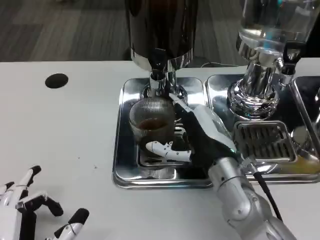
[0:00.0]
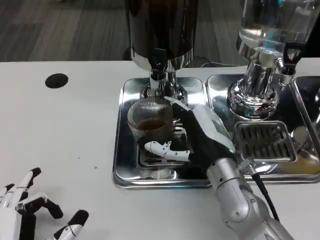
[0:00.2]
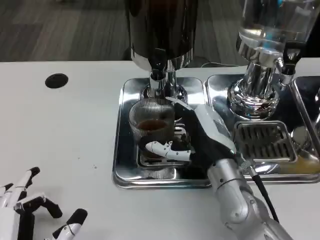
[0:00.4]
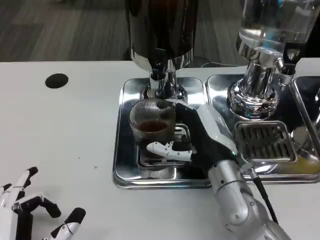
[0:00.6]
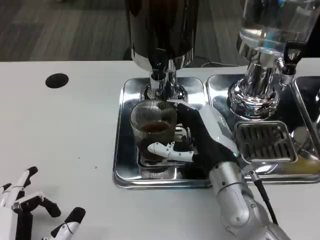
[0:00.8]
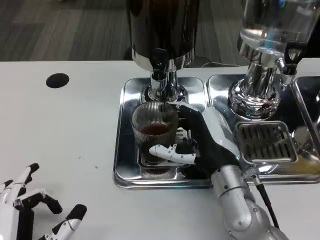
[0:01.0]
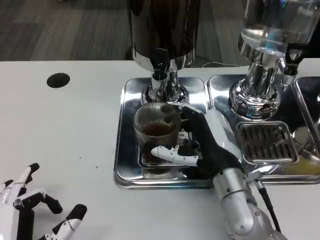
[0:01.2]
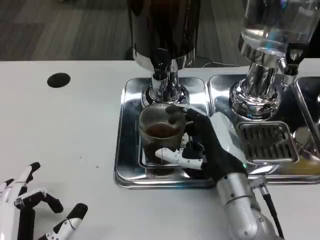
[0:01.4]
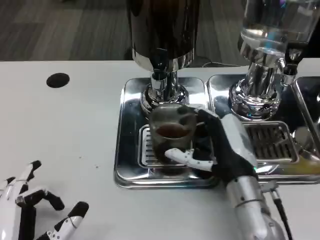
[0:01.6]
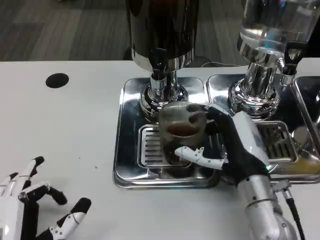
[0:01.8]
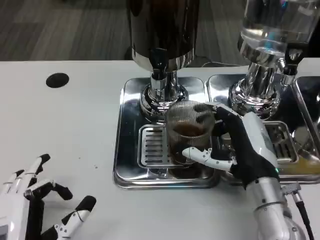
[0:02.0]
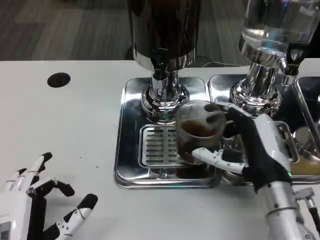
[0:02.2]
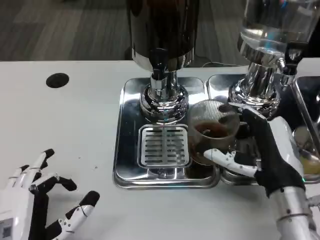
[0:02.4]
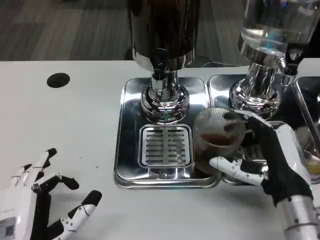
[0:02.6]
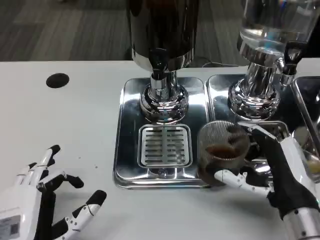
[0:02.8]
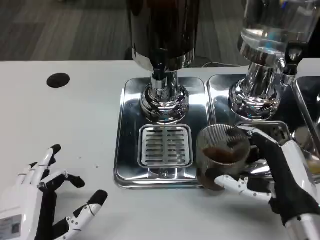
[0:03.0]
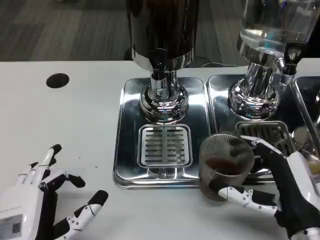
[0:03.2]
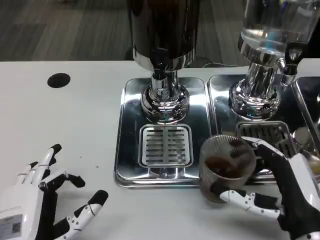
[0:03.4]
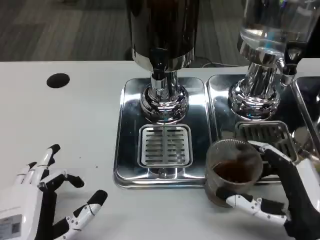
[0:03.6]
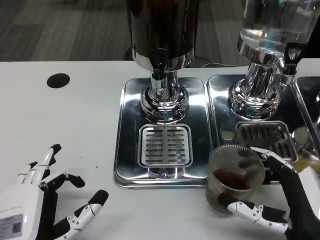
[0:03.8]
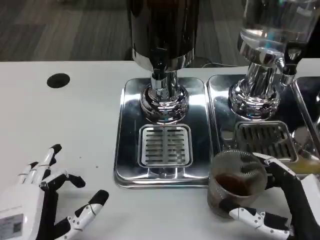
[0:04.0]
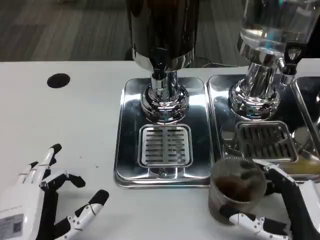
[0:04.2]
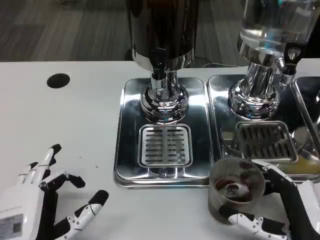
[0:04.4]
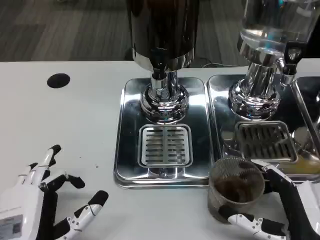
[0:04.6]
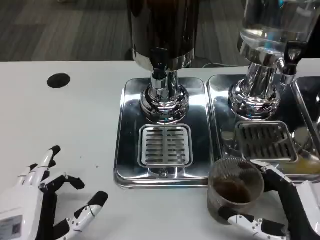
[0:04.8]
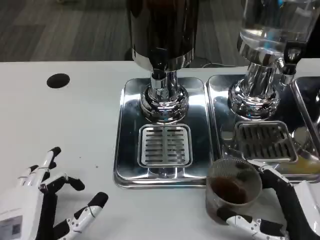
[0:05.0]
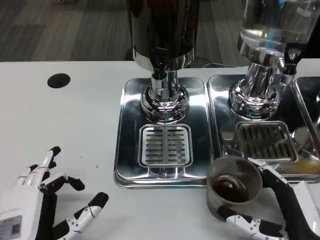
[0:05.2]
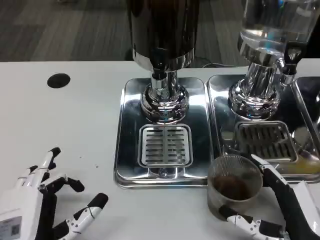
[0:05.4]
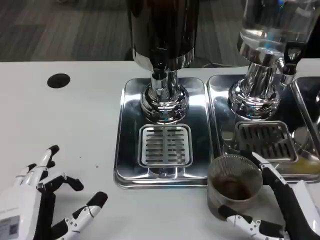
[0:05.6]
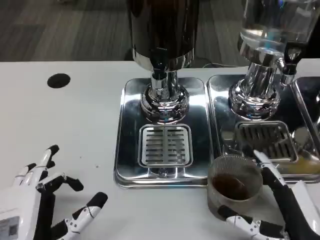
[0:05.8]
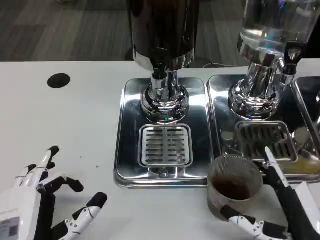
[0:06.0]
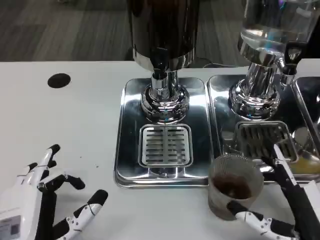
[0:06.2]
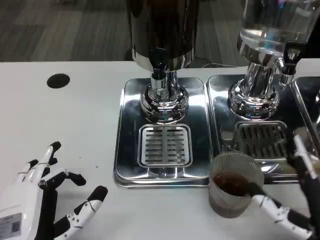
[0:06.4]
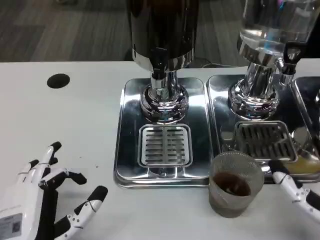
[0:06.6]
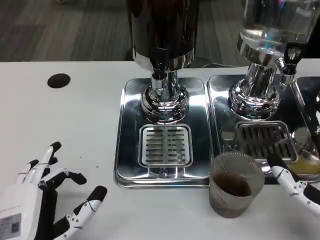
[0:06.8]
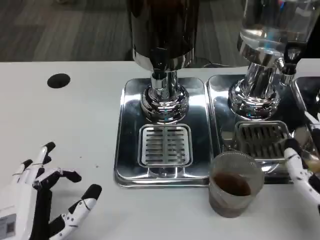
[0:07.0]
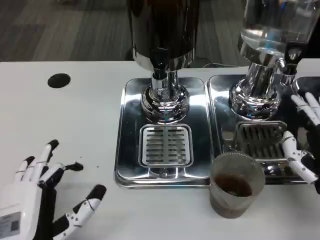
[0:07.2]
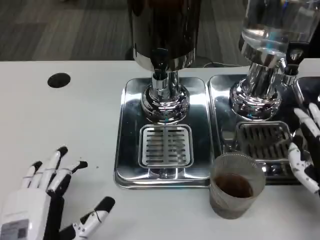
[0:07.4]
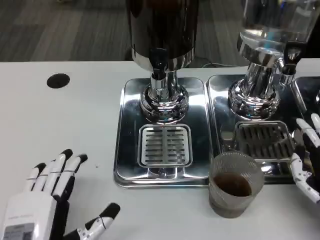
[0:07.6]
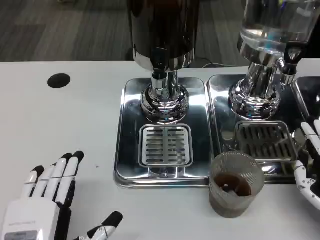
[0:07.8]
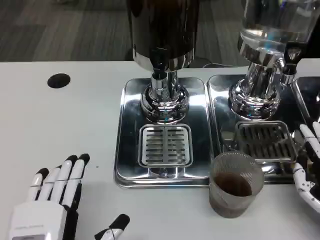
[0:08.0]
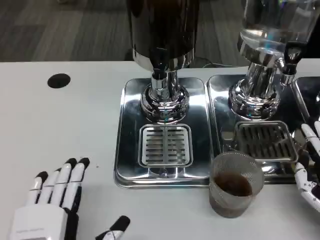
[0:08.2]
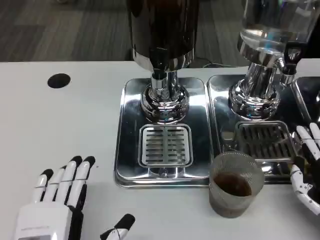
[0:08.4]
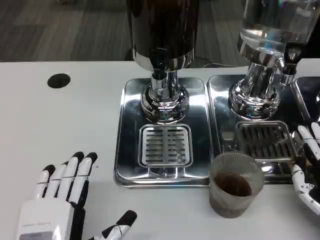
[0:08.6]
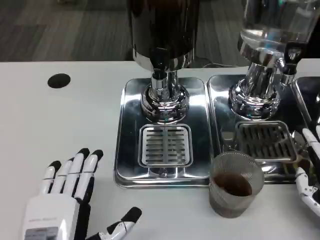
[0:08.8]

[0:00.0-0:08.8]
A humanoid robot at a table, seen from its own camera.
Task of the whole recording: Grasp the cup under the faucet to collect the drink, then remove the cup.
0:01.4 to 0:03.0: The right hand heads to the right and backward, covering roughly 10 cm.
0:03.0 to 0:04.4: The right hand ends up approximately 5 cm from where it was.
0:04.4 to 0:05.8: The hands stay close to where they were, moving slightly.
0:05.8 to 0:07.4: The right hand is displaced forward and to the right by roughly 10 cm.
0:07.4 to 0:08.8: There are only small adjustments of the hands.

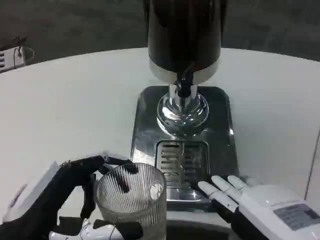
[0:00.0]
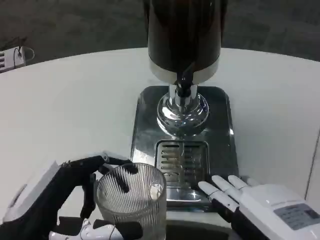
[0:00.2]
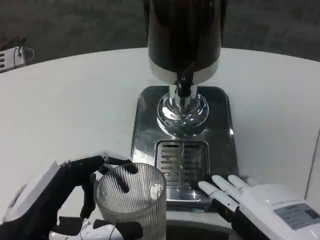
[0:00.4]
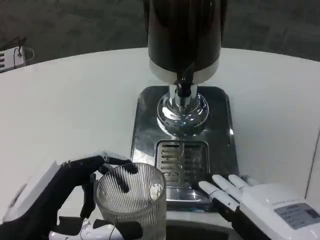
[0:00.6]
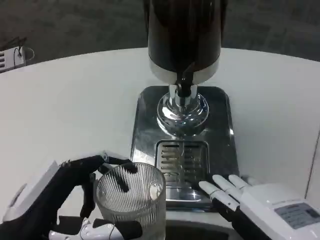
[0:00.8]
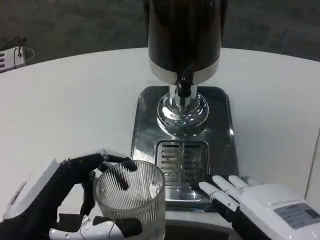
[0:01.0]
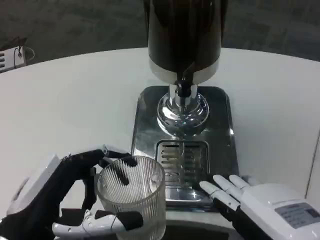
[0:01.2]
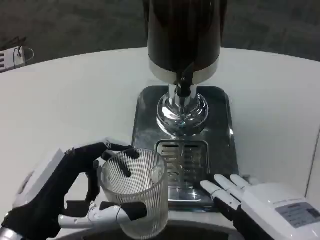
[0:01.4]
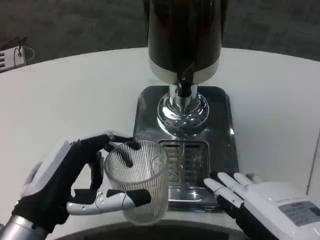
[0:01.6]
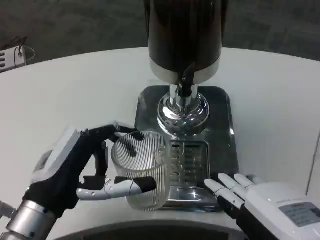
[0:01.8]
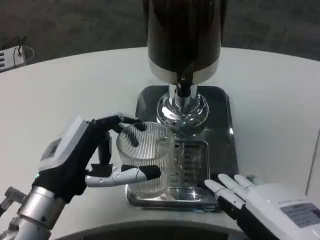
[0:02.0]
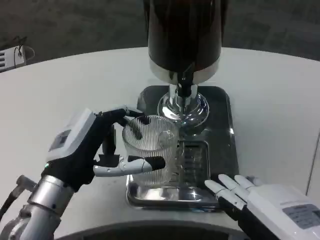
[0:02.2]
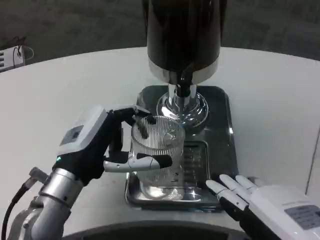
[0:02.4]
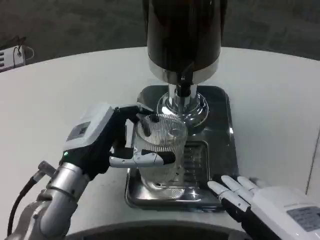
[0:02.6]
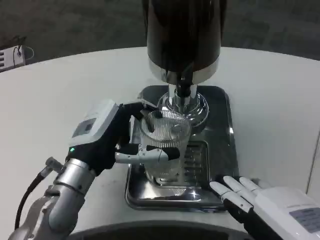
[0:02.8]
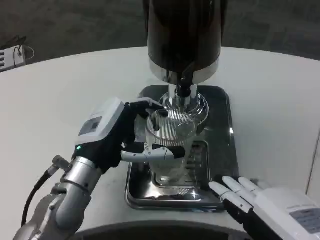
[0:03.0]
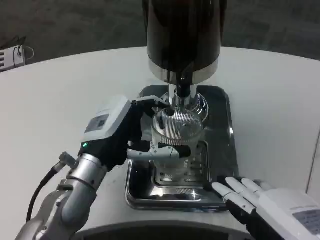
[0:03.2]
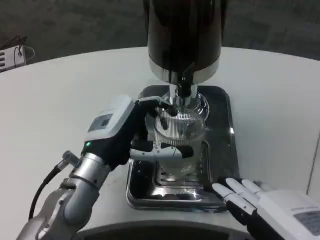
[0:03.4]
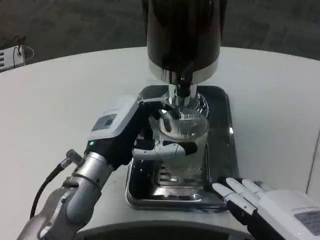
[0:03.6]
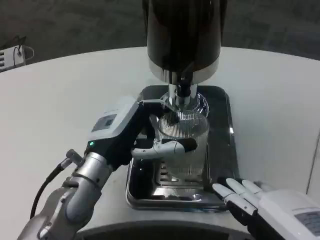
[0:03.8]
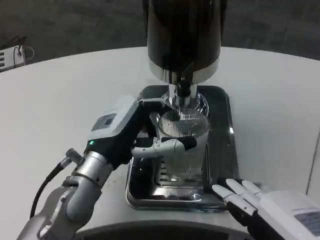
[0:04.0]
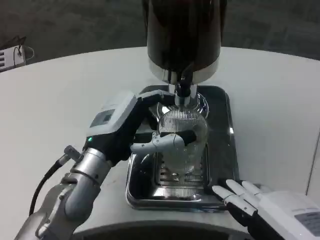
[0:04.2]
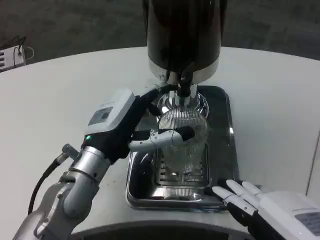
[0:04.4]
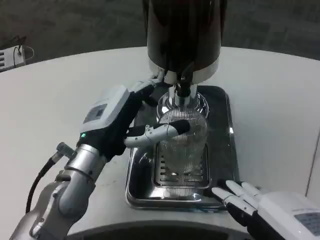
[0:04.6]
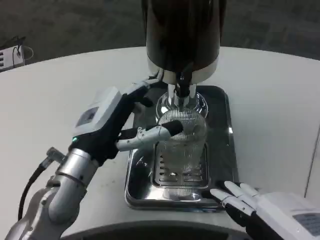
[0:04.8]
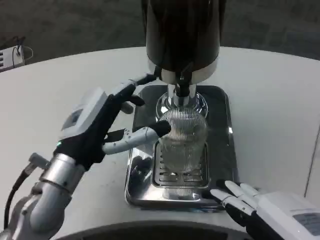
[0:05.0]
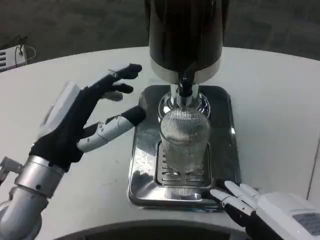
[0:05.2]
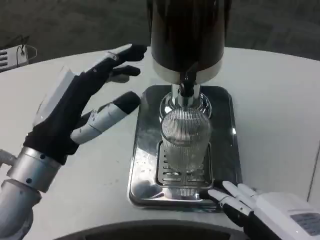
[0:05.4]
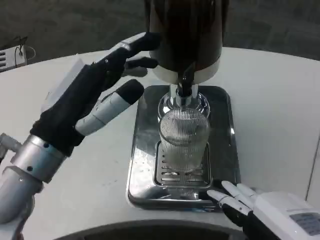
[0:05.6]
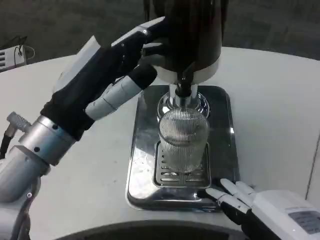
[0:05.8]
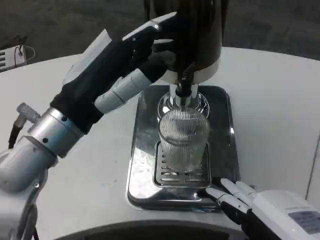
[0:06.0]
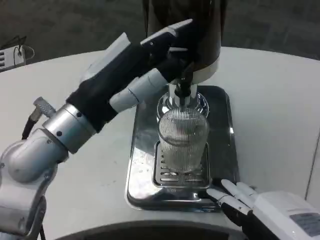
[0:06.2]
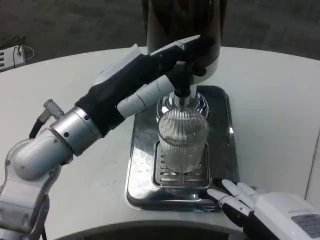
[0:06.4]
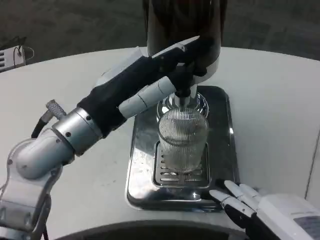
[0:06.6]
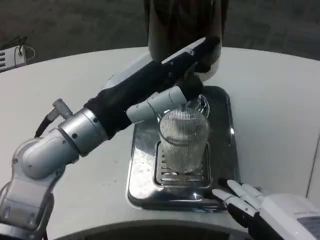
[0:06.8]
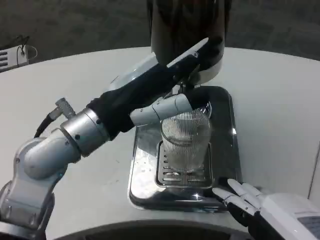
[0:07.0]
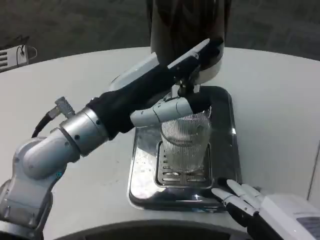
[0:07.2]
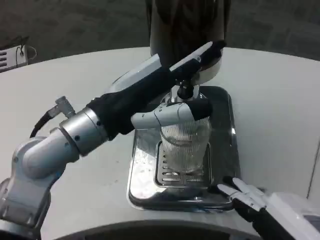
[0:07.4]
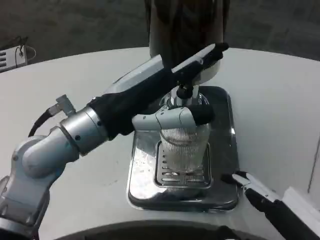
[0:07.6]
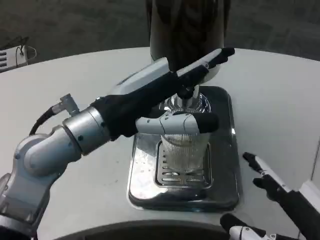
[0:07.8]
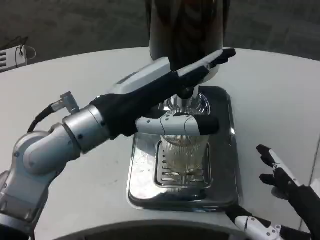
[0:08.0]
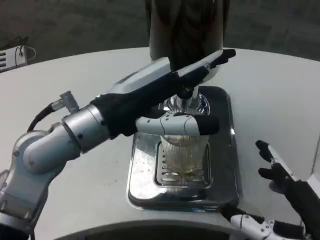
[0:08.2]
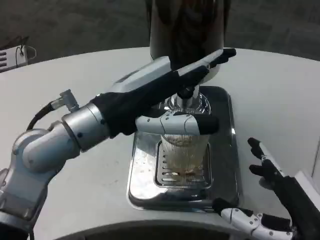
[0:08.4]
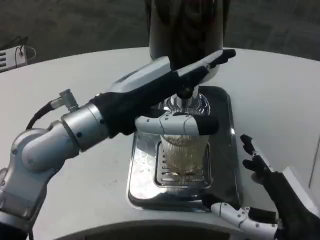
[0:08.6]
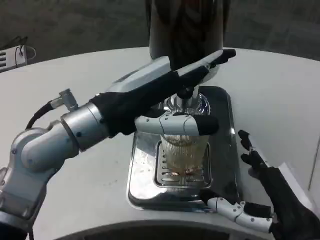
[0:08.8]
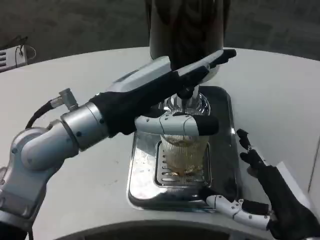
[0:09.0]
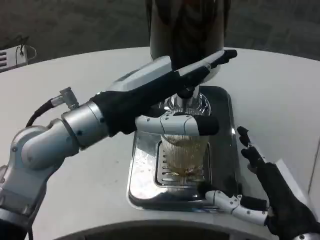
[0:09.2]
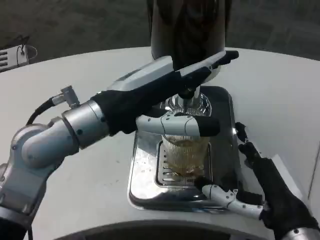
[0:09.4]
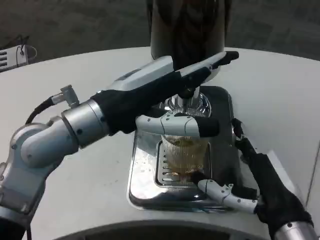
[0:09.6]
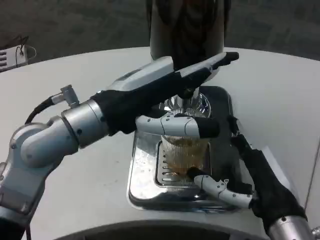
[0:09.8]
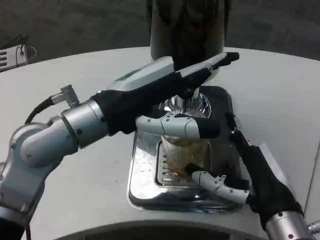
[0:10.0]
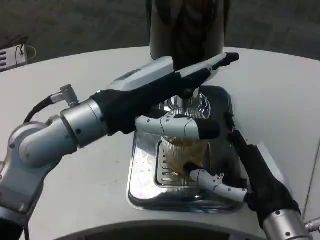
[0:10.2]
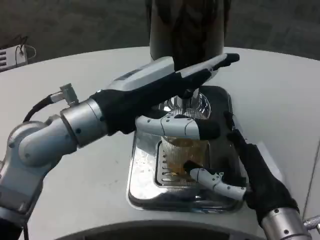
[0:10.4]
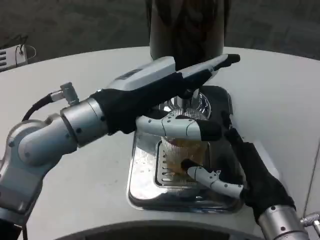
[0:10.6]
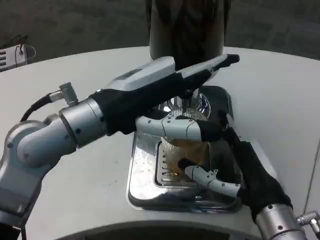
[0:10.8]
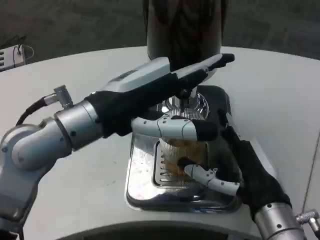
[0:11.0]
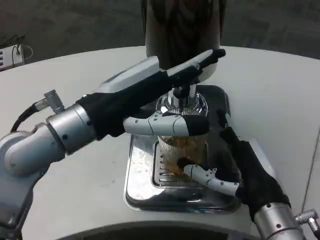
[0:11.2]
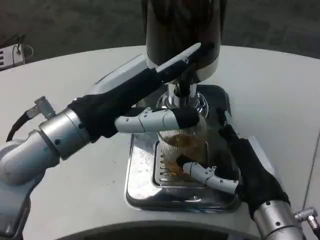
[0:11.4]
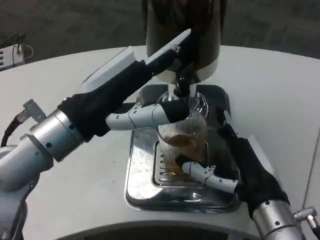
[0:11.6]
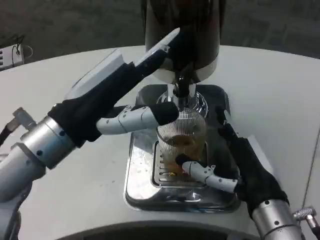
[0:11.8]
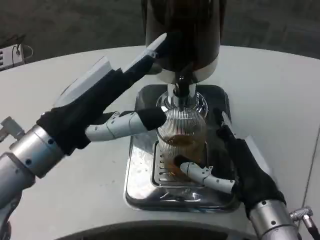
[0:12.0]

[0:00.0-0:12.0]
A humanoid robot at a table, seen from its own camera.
Task of the whole recording: Grasp the cup under the faucet to collect the drink, then remove the cup.
0:00.0 to 0:01.6: The hands move only a little.
0:01.6 to 0:03.0: The left hand moves forward and to the right, approximately 10 cm.
0:03.0 to 0:04.4: The hands stay close to where they were, moving slightly.
0:04.4 to 0:06.0: The left hand is displaced upward by roughly 10 cm.
0:07.6 to 0:09.0: The right hand heads forward, covering some 5 cm.
0:09.0 to 0:10.4: The hands make only small movements.
0:10.4 to 0:12.0: The left hand ends up roughly 5 cm from where it was.

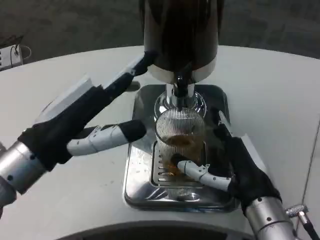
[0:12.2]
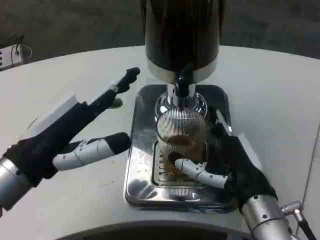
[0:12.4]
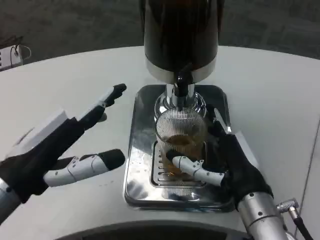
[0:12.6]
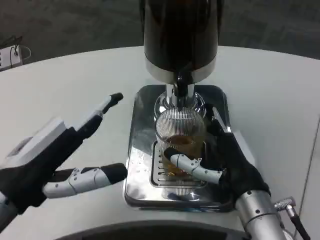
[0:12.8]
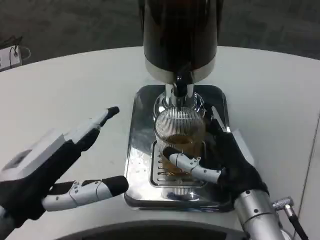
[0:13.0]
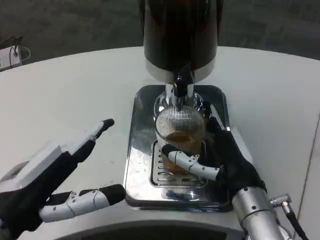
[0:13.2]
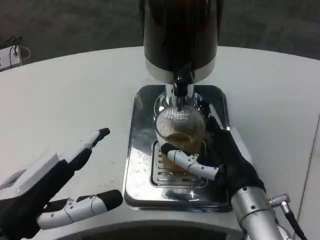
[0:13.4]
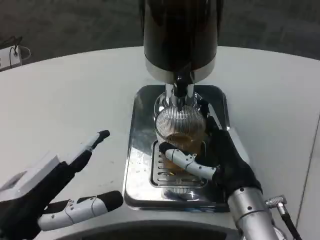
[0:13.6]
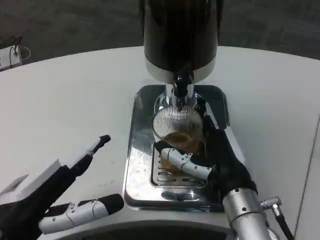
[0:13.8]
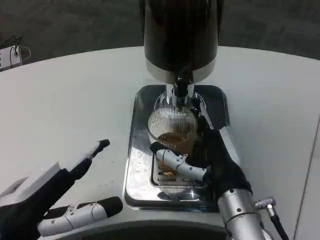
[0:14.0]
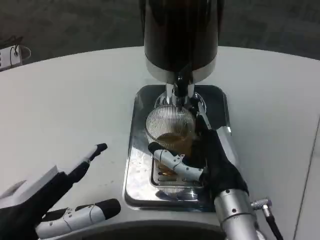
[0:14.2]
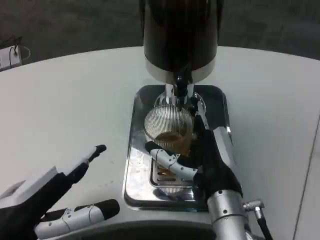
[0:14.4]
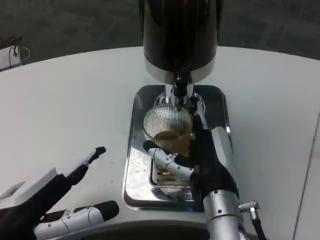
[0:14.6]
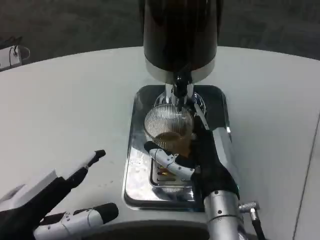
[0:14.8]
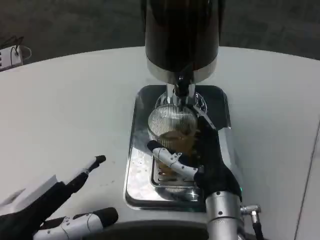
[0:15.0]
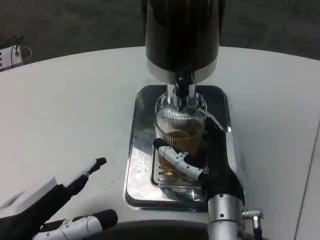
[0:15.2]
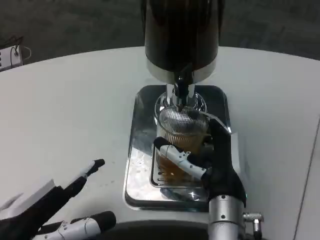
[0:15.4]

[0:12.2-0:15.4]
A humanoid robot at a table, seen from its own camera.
Task of the whole recording: Grasp the cup under the faucet to collect the drink, then remove the cup.
0:12.2 to 0:13.8: The left hand moves backward, approximately 5 cm.
0:13.8 to 0:15.4: The hands stay close to where they were, moving slightly.
